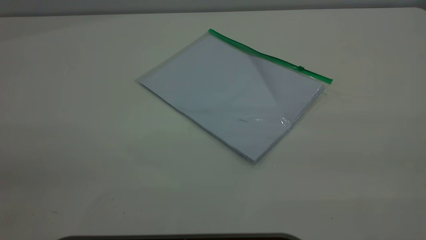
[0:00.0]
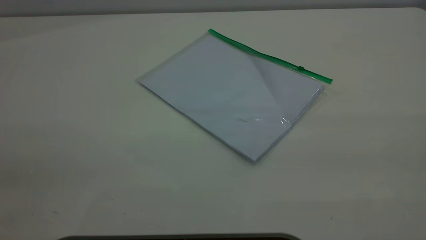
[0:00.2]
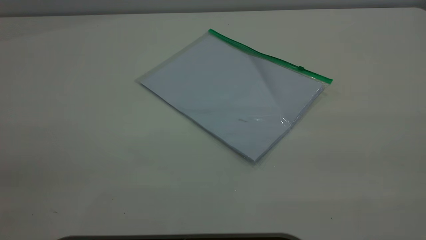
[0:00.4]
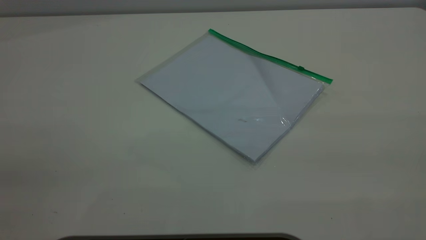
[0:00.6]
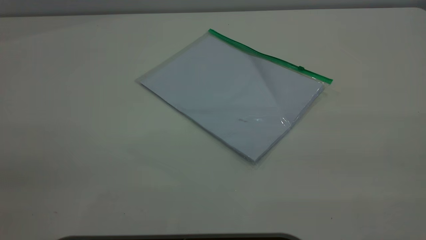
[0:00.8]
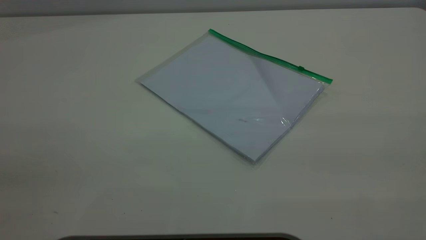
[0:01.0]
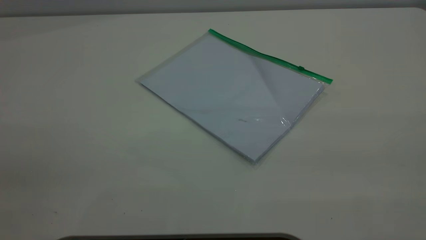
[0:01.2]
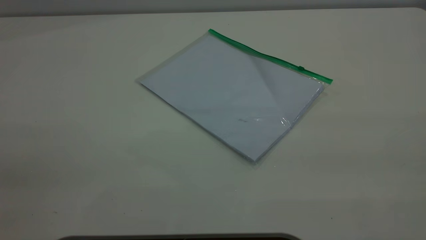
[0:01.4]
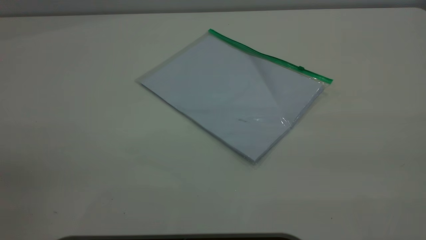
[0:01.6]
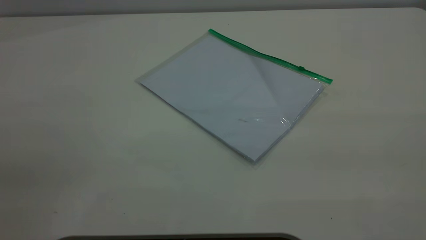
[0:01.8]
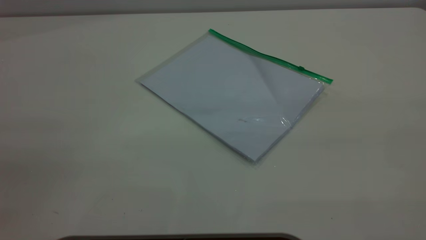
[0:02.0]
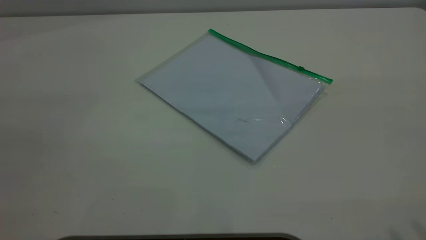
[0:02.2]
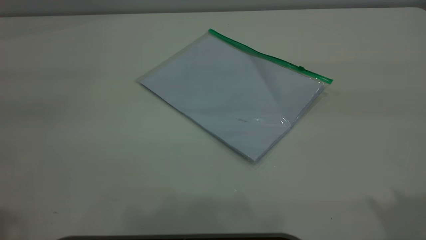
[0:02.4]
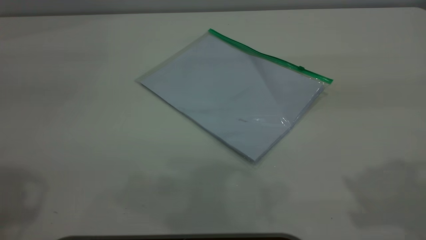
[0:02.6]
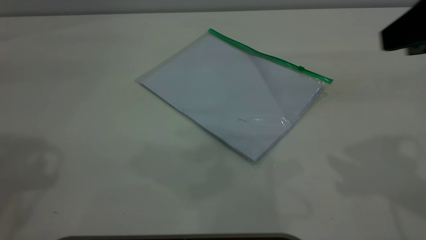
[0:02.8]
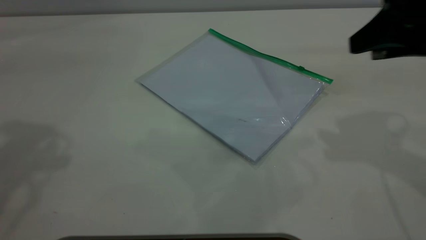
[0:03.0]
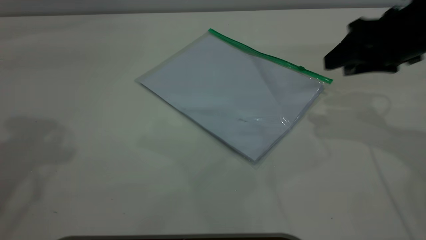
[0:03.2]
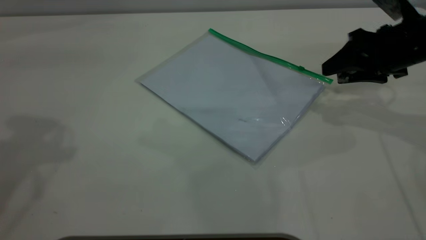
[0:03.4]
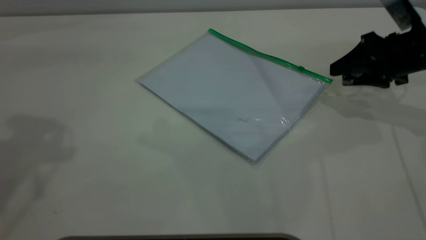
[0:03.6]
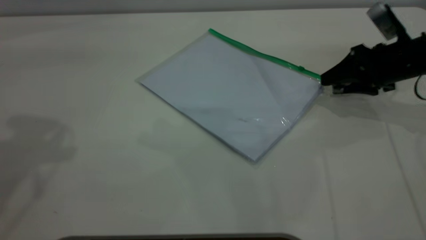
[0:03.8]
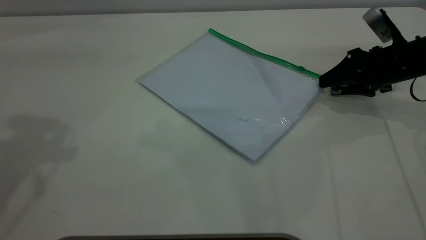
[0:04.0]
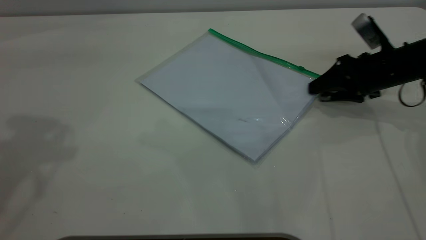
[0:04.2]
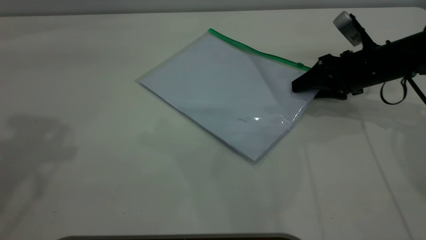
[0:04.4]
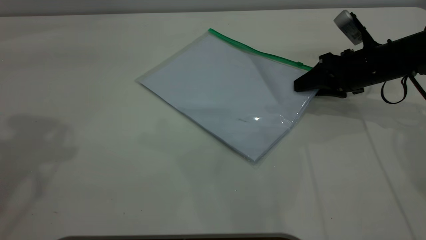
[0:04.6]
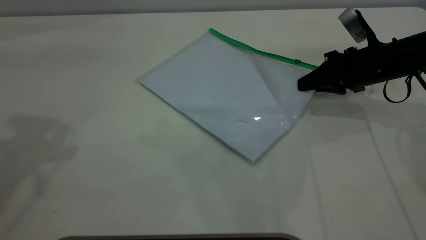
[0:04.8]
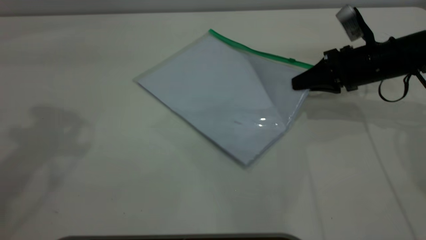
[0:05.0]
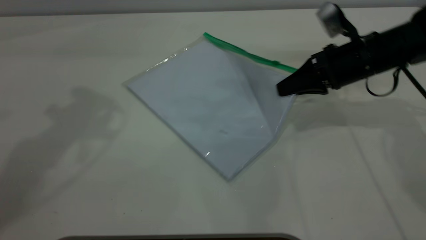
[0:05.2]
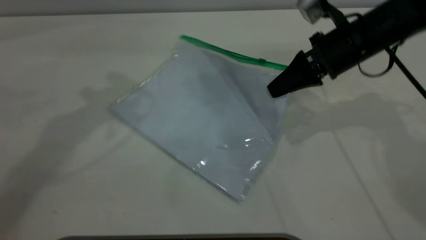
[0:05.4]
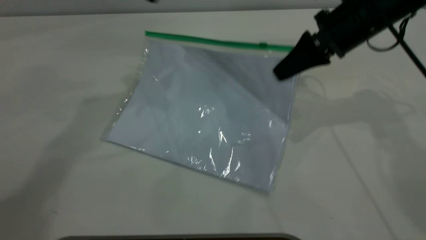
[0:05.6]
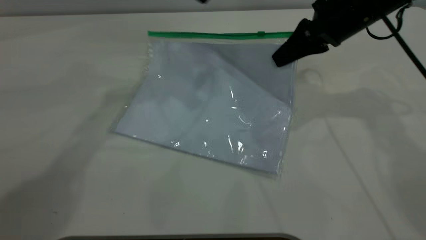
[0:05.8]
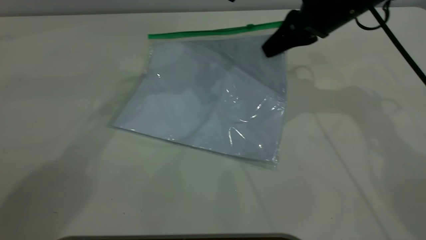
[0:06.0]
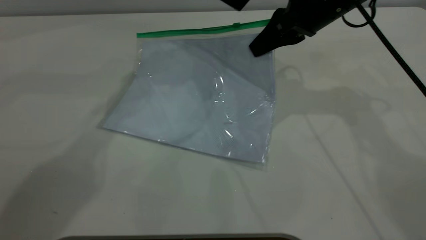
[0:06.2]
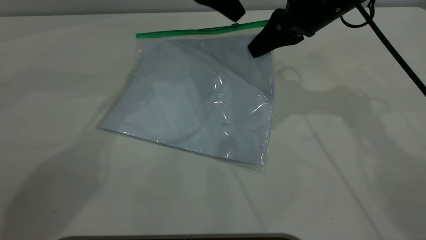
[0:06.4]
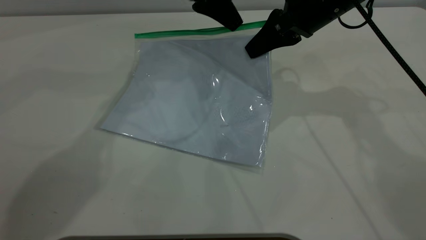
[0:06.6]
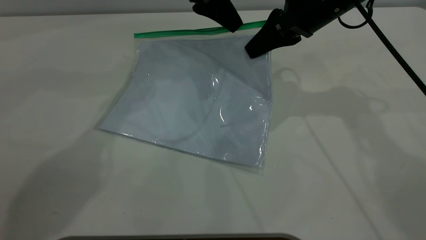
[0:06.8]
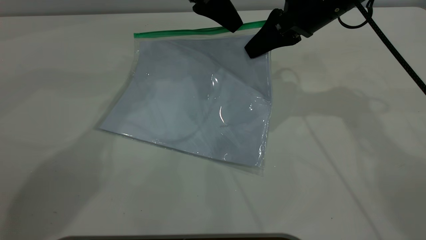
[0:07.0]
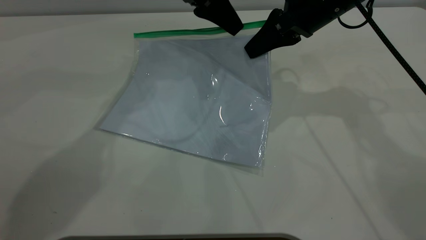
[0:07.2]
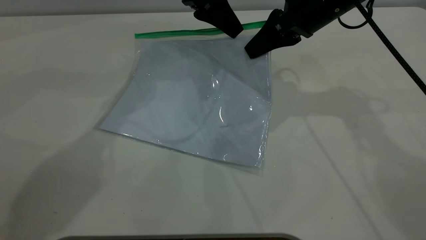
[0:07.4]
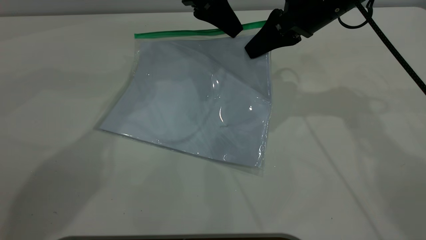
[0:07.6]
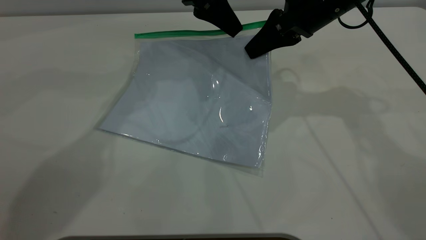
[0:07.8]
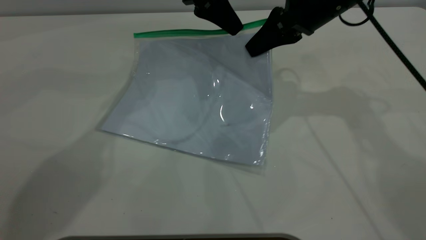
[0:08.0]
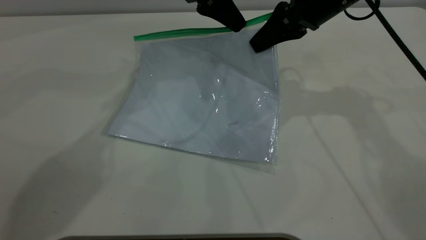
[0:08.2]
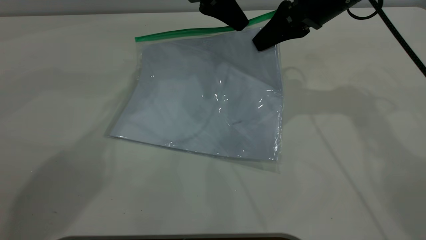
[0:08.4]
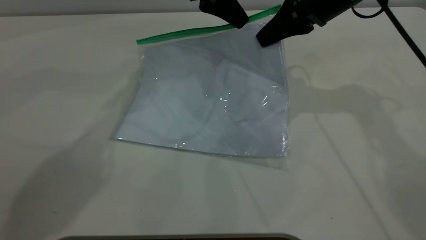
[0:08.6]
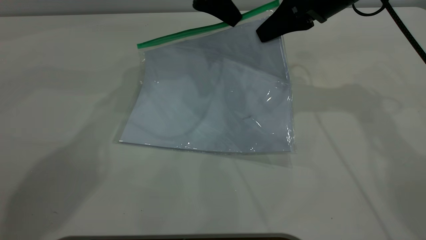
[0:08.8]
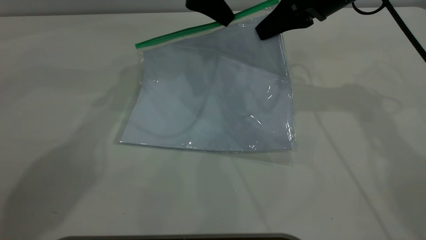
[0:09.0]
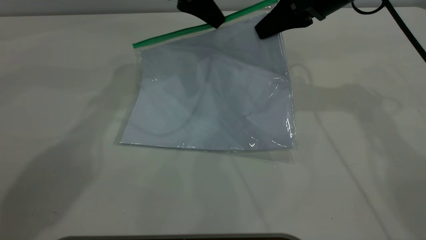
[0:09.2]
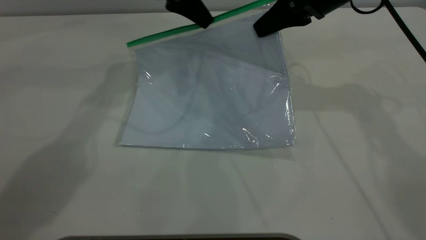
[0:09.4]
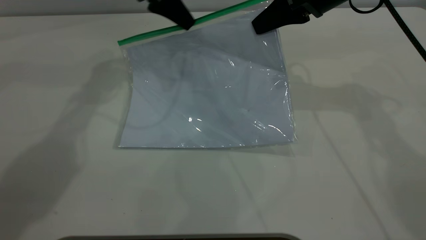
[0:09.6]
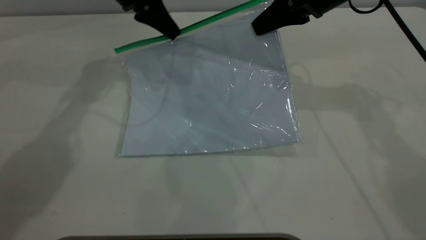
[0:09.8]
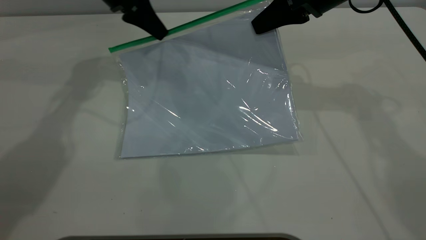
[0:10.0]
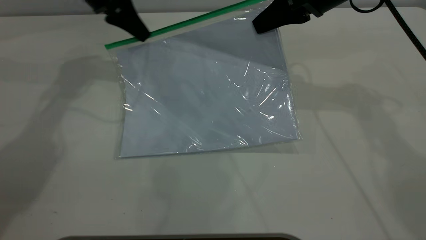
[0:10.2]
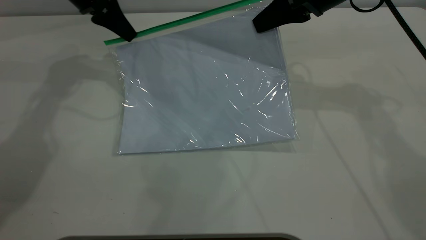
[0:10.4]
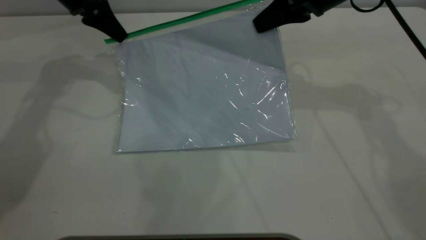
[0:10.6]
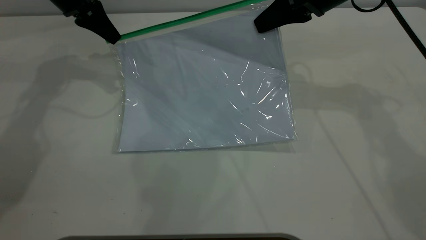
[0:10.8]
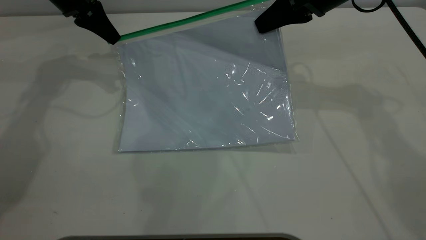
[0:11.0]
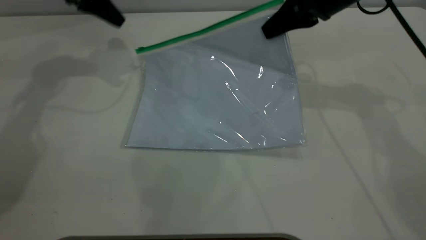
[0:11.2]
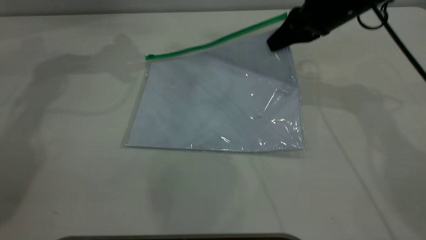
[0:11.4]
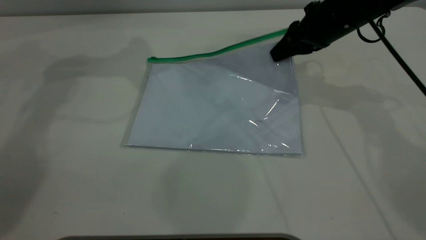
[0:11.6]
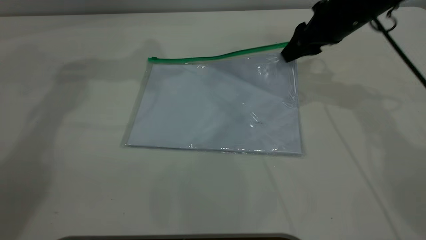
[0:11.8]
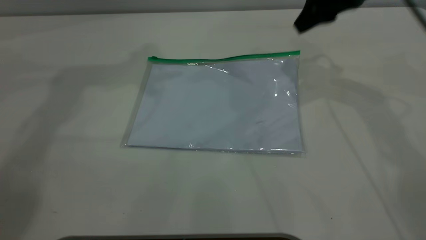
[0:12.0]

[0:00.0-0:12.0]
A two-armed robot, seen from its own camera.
Step, 0:00.0 to 0:05.2: Pick up the transparent plastic bag with the right gripper.
Step, 0:05.6 to 0:11.0: Pulling up the zipper on the transparent plastic bag with the left gripper to close it.
Step, 0:11.2 to 0:12.0: Place the transparent plastic bag.
0:00.0 to 0:01.6: The two grippers keep their place.
0:01.6 to 0:03.0: The right gripper goes some 35 cm forward and downward.
0:03.0 to 0:04.4: The right gripper heads downward and forward, covering roughly 20 cm.
0:04.4 to 0:06.0: The left gripper is displaced to the right, forward and downward by some 30 cm; the right gripper heads upward and to the left, covering roughly 15 cm, and closes.
0:06.0 to 0:07.6: The left gripper closes.
0:07.6 to 0:09.0: The left gripper closes.
0:09.0 to 0:10.4: The left gripper travels to the left by some 15 cm.
0:10.4 to 0:12.0: The left gripper shifts about 25 cm upward, and opens its fingers. Meanwhile the right gripper ends up about 5 cm from where it was, and opens.

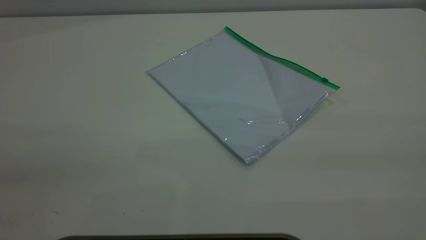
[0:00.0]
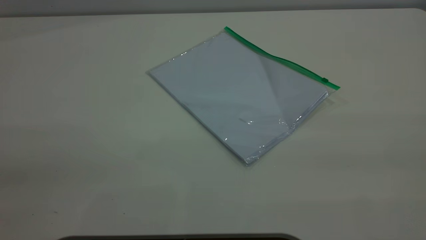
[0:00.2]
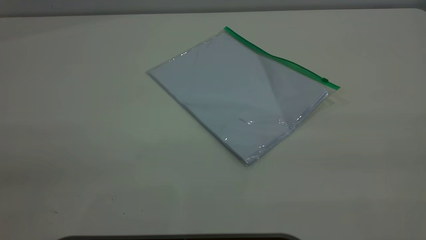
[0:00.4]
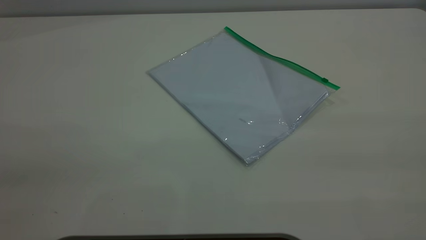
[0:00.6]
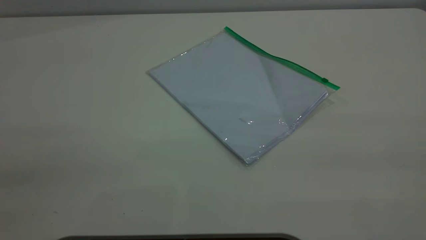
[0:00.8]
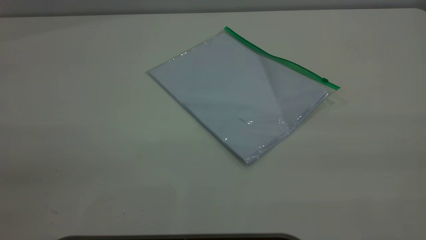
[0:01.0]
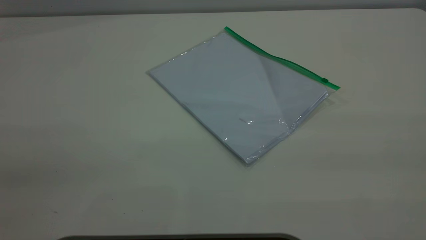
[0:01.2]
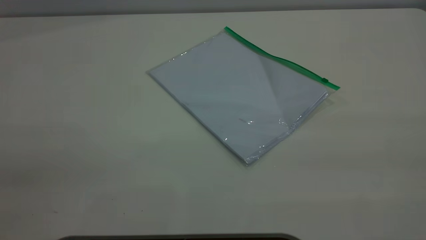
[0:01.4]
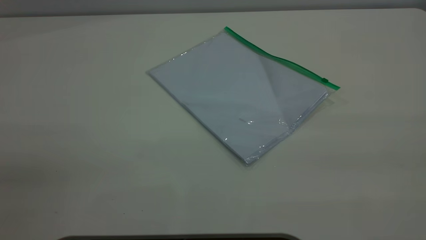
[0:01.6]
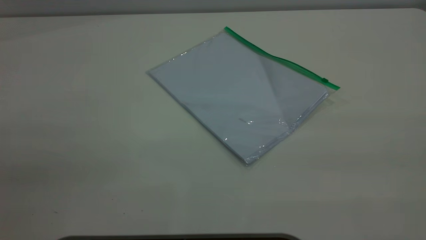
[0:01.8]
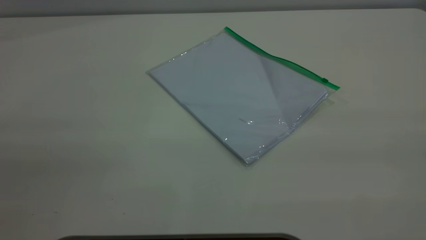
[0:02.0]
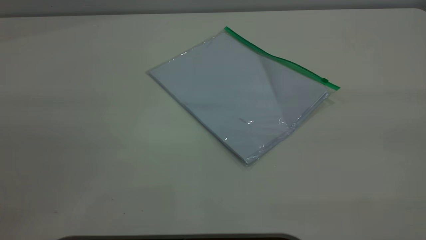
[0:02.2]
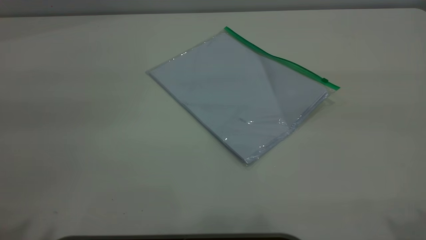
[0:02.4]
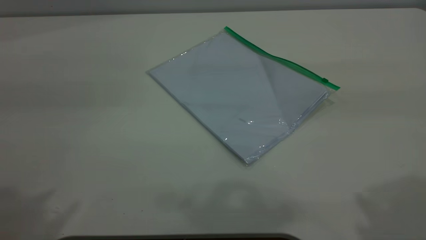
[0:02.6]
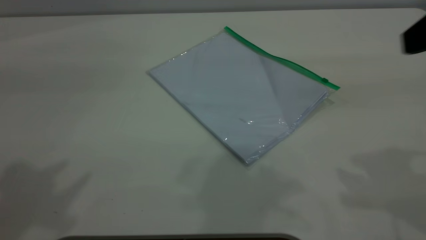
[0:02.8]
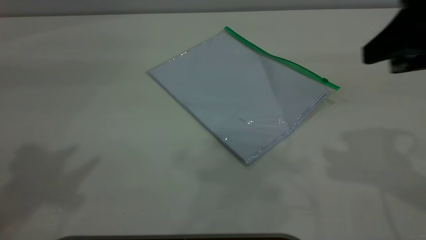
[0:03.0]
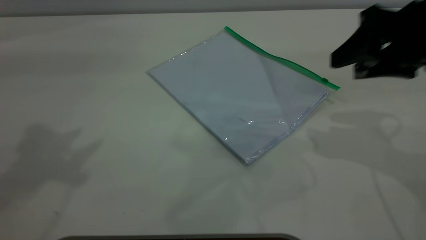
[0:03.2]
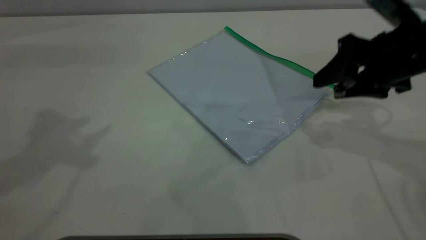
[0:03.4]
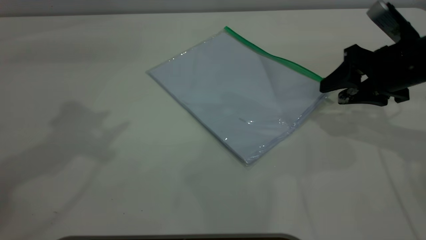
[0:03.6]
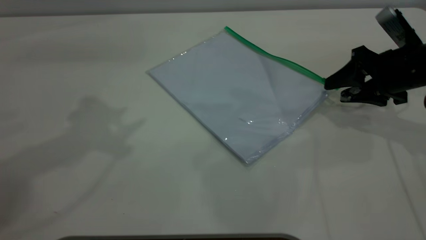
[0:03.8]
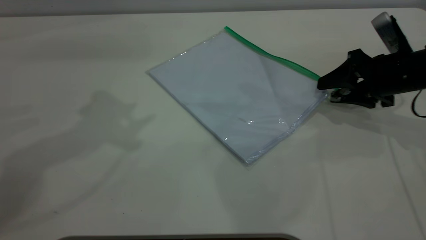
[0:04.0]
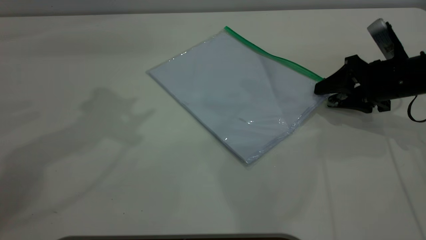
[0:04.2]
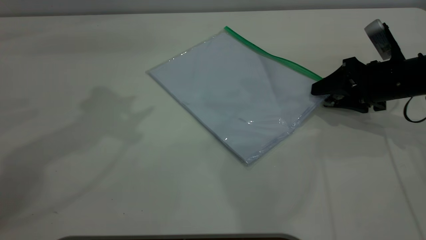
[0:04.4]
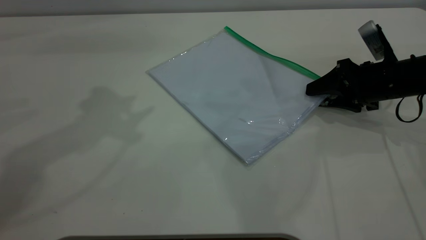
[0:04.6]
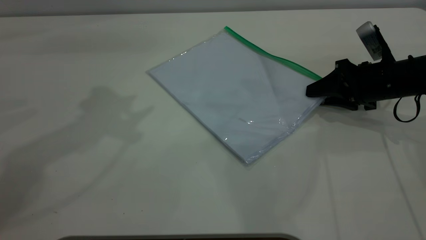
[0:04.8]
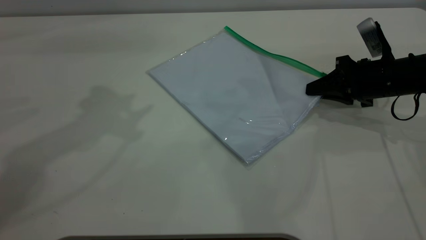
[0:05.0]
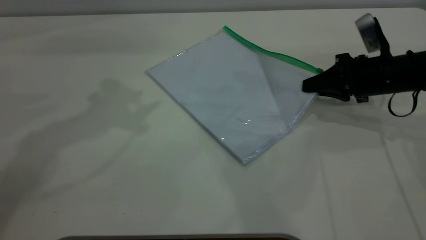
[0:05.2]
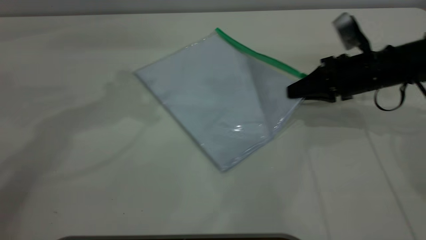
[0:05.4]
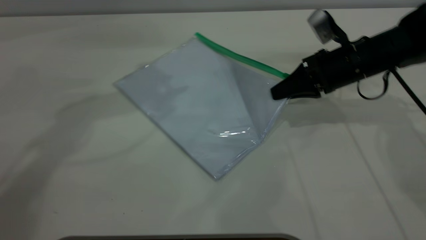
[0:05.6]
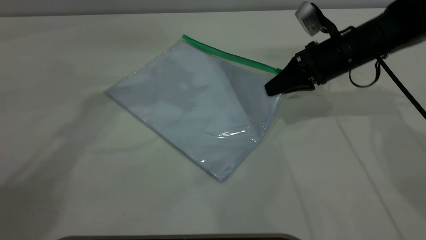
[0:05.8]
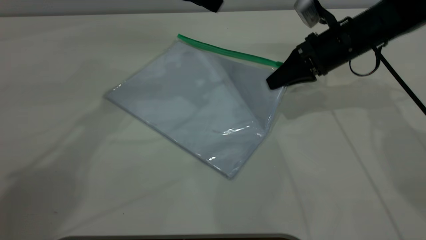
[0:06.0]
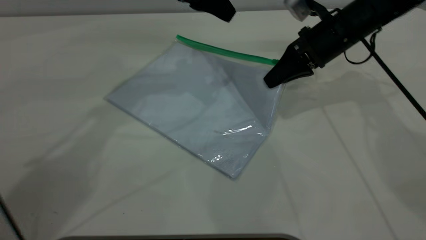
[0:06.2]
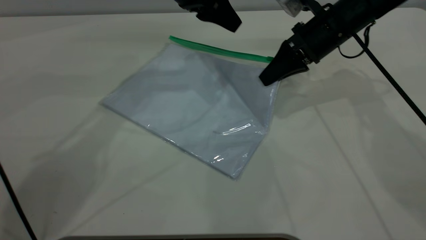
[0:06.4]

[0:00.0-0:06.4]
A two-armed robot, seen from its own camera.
Step, 0:00.0 to 0:05.4: Pick up the transparent plastic bag with the right gripper.
0:00.0 to 0:01.6: Both grippers stay put.
0:01.6 to 0:03.2: The right gripper goes about 35 cm forward and downward.
0:03.2 to 0:04.8: The right gripper moves downward and forward, roughly 15 cm, and closes up.
0:04.8 to 0:06.4: The left gripper heads downward, to the right and forward, covering roughly 25 cm, while the right gripper shifts about 15 cm to the left, forward and upward, and closes.
